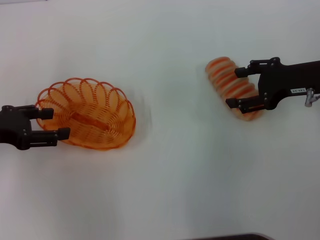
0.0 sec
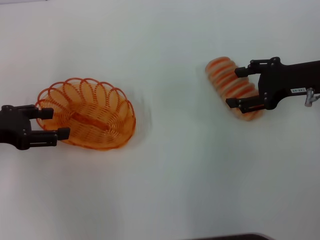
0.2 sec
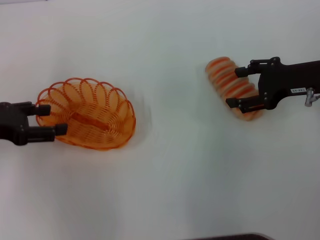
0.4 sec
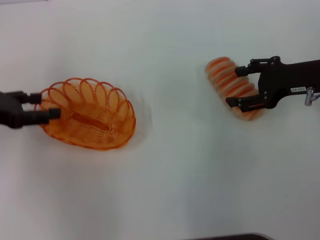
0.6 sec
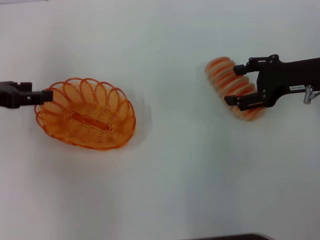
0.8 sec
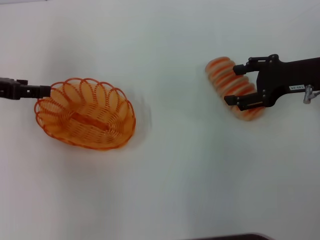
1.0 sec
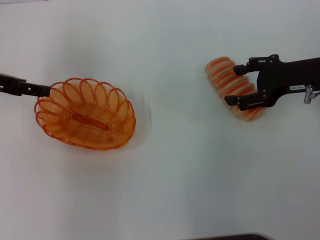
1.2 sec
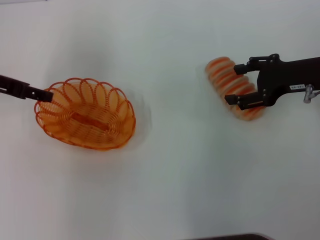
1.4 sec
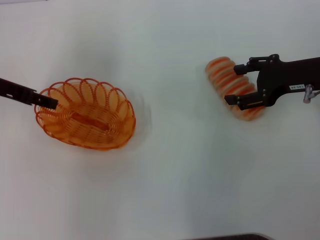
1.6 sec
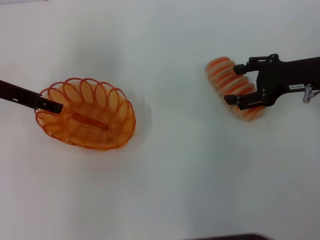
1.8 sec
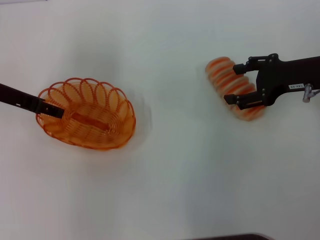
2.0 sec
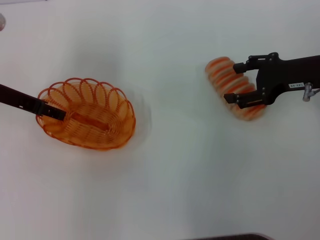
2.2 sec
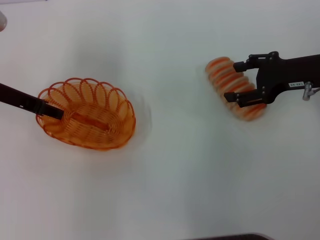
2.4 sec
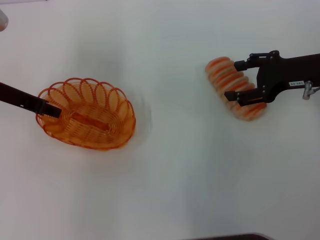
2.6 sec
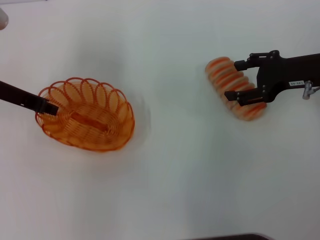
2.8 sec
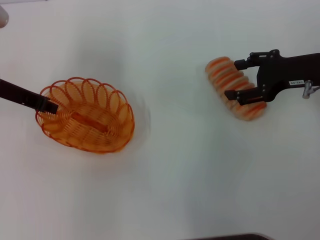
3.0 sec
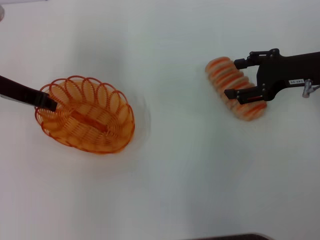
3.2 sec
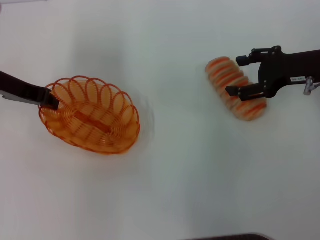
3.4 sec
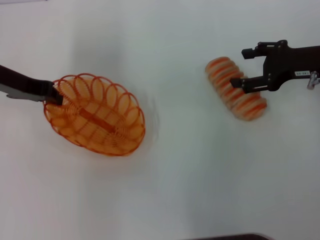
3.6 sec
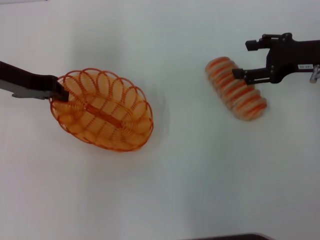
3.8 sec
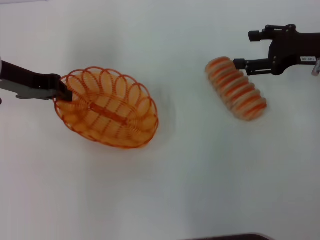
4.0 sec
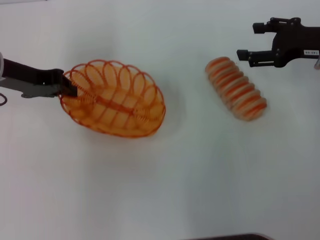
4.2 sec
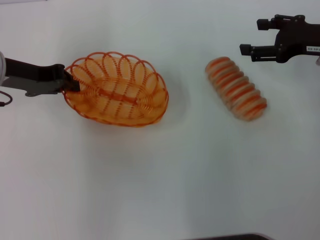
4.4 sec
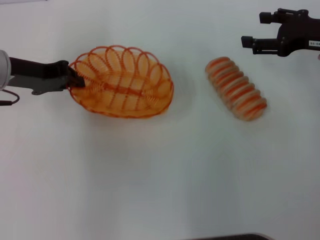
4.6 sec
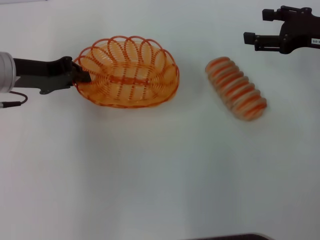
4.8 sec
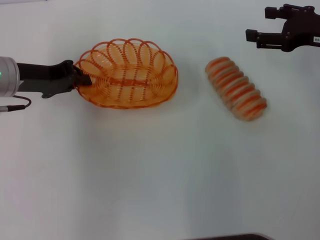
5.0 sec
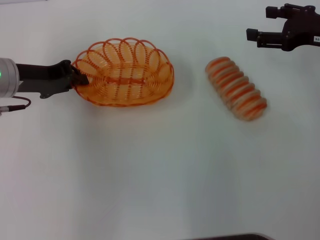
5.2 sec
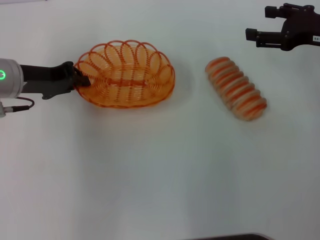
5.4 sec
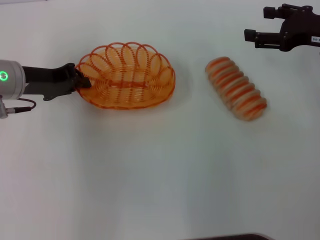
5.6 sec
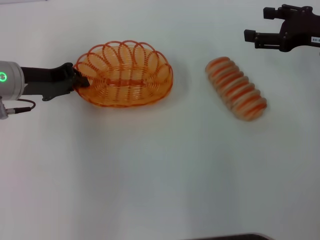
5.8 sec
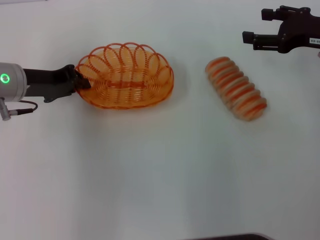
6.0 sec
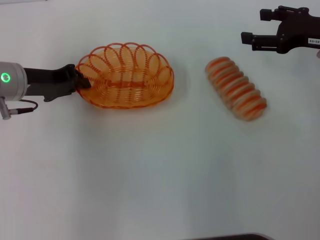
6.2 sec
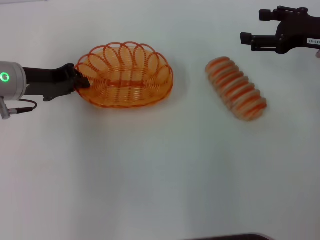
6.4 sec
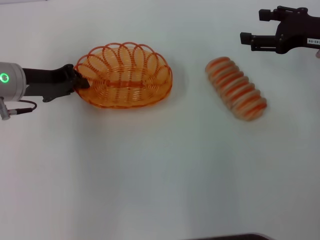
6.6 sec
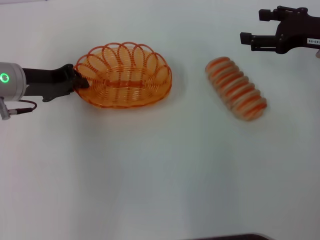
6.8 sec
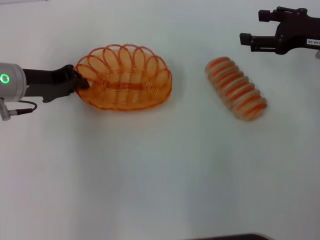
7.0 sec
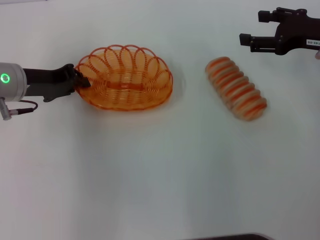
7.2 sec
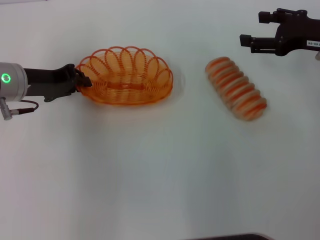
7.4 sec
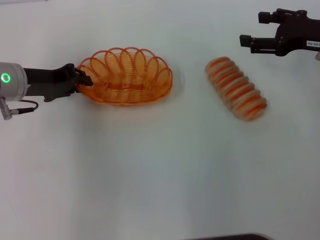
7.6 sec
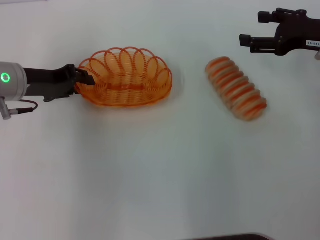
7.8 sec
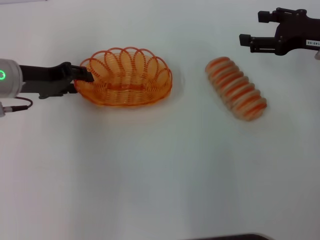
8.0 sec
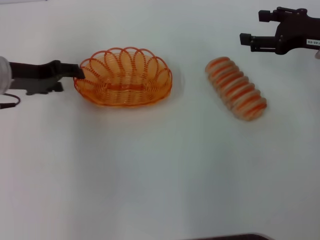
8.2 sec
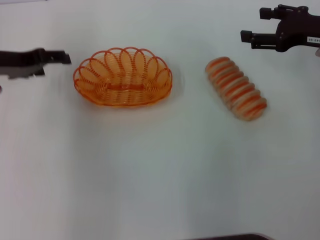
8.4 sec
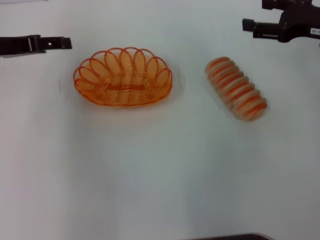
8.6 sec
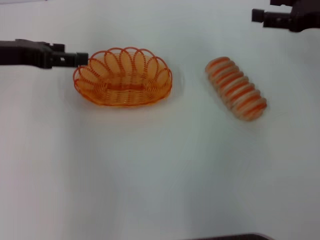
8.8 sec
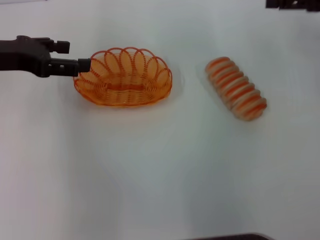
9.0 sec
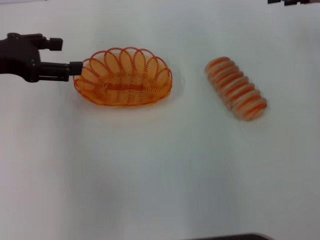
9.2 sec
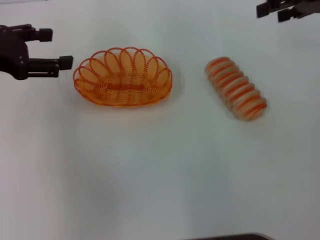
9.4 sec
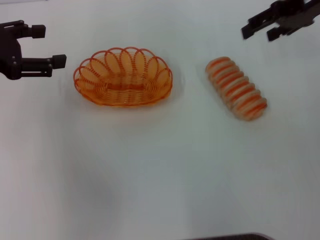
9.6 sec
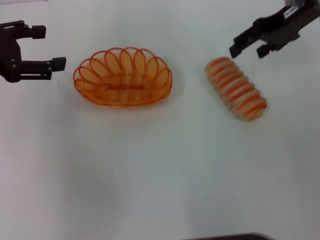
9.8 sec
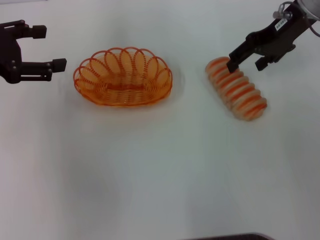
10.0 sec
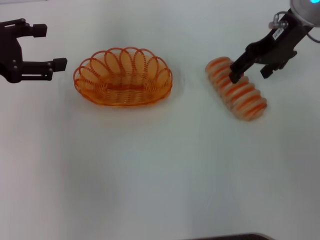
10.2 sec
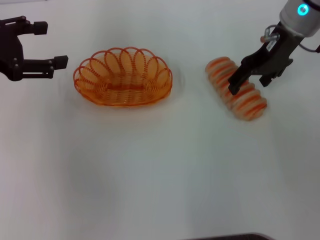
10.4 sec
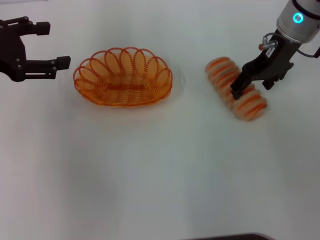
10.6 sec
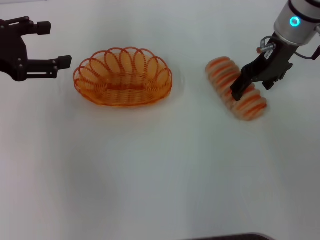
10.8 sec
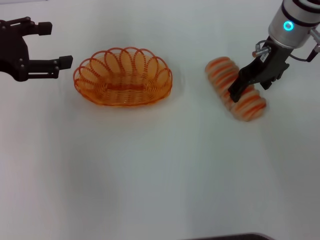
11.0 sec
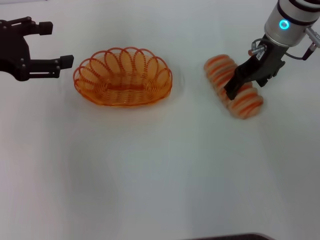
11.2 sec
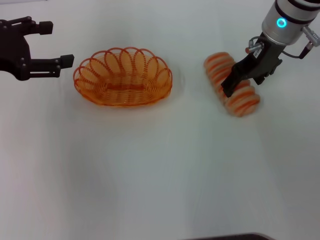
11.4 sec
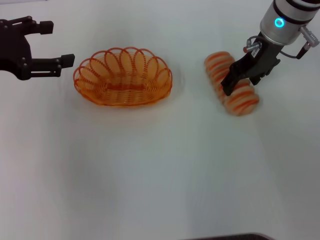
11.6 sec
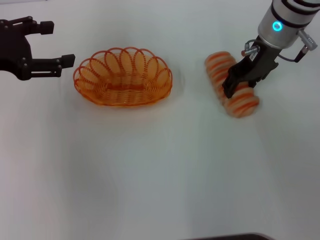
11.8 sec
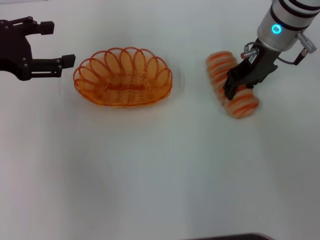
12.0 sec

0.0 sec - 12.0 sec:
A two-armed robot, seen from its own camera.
Step, 0.0 sec - 3.8 sec: Pick up the basket with the left gripper.
Step, 4.0 sec - 8.4 sec: Place the basket in the center of view with the left gripper.
0.0 sec - 1.6 sec: The left gripper heads forward, covering approximately 10 cm.
1.6 sec - 3.0 sec: The left gripper closes up.
4.4 sec - 6.0 sec: The grippers stay close to where they were, moving slightly.
6.0 sec - 7.6 sec: The two grippers keep their place.
7.6 sec - 9.0 sec: Both grippers travel together upward, approximately 5 cm. The left gripper opens up.
9.0 sec - 10.4 sec: The right gripper heads to the left, covering roughly 15 cm.
10.4 sec - 12.0 sec: The right gripper closes its fingers.

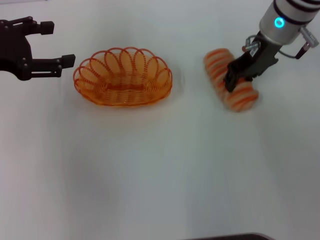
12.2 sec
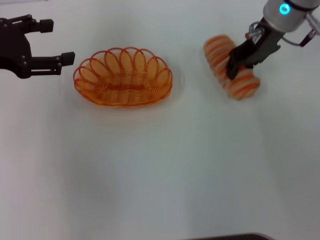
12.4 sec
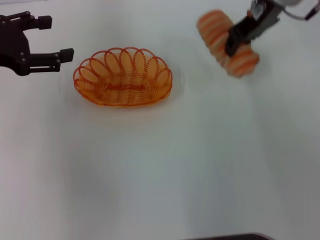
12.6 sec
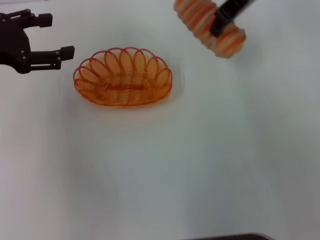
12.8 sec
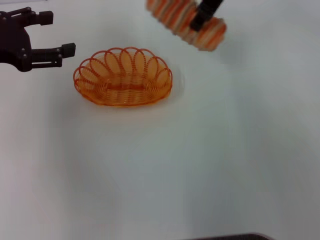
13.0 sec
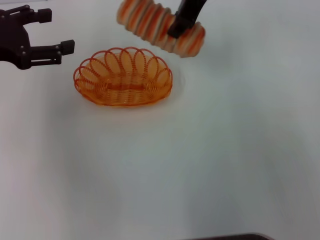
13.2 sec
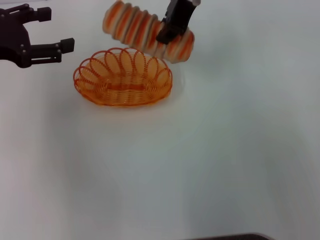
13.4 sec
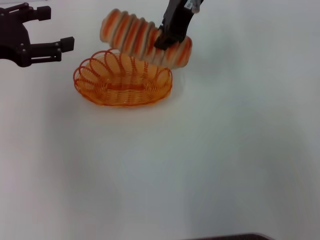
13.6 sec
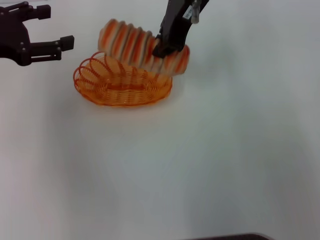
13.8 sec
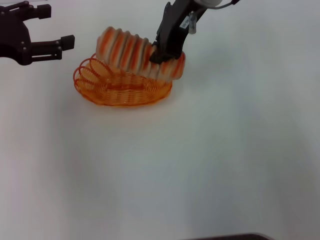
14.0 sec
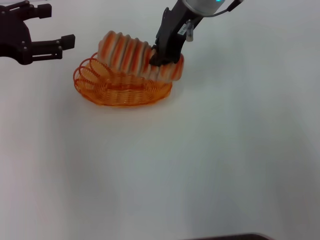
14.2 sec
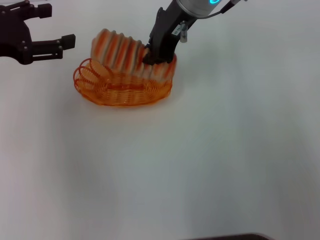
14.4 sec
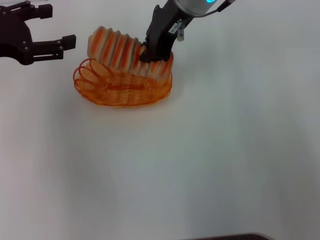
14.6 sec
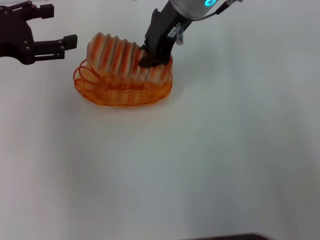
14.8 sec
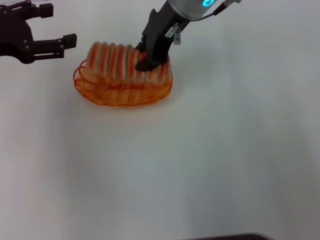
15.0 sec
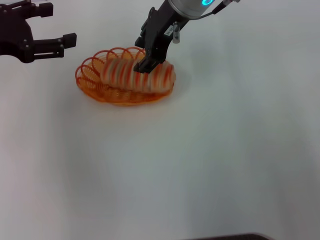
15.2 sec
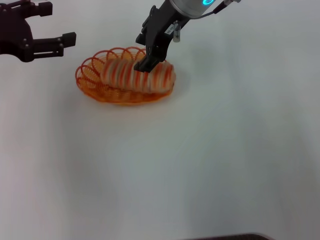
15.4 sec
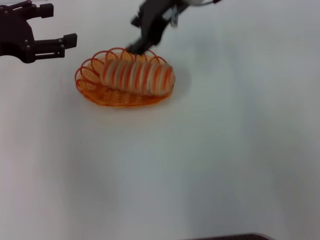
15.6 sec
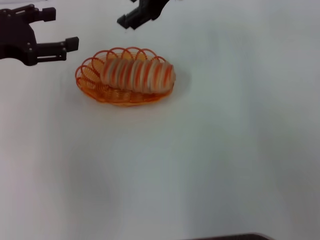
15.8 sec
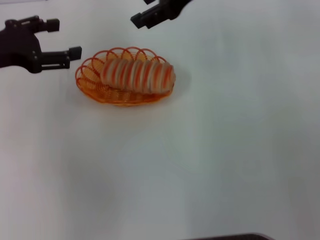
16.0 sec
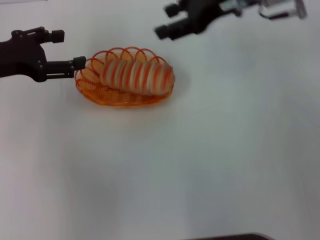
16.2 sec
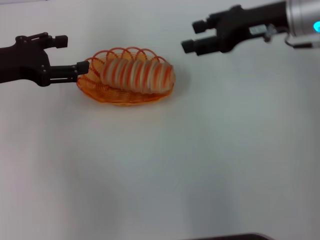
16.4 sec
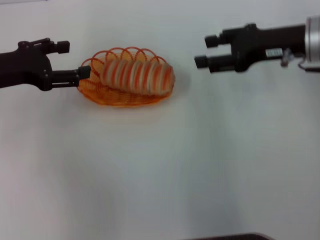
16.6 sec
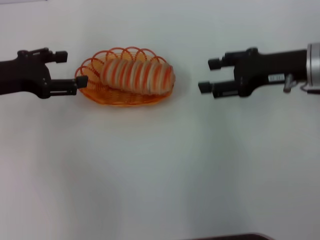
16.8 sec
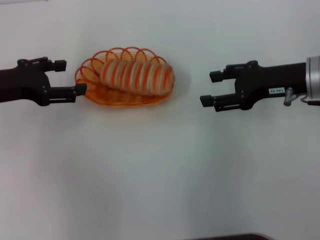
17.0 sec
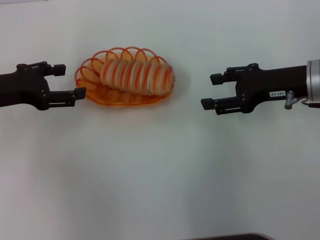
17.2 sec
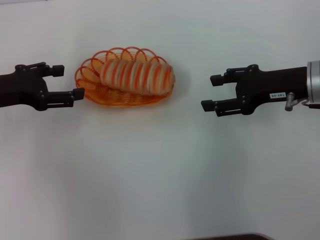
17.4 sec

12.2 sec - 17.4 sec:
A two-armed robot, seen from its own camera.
Step, 12.6 sec - 15.6 sec: Place the long bread into the basket with the right gripper.
12.2 sec - 14.0 sec: The right gripper goes approximately 15 cm to the left and upward, and closes up.
14.0 sec - 15.6 sec: The right gripper opens.
15.6 sec - 17.4 sec: The right gripper is displaced to the right, downward and backward by approximately 25 cm; the left gripper goes roughly 5 cm downward.

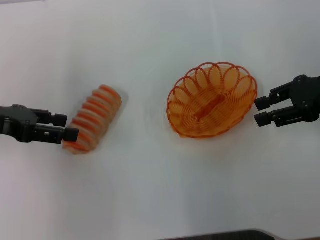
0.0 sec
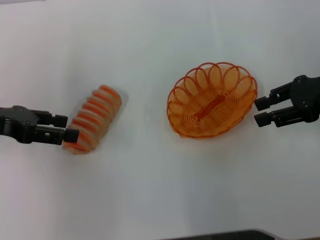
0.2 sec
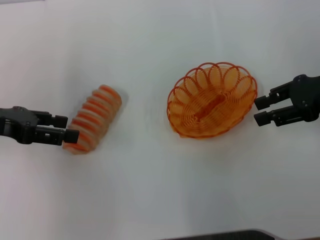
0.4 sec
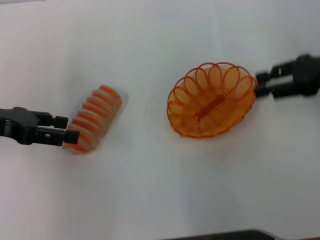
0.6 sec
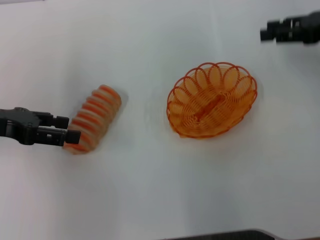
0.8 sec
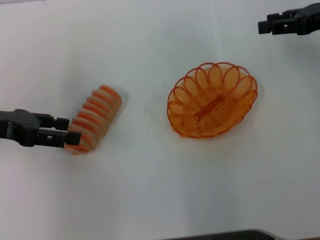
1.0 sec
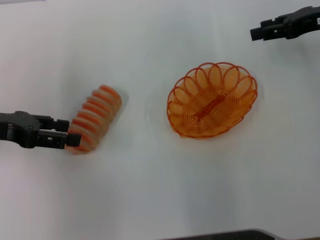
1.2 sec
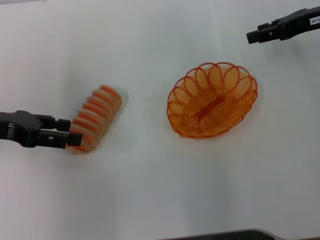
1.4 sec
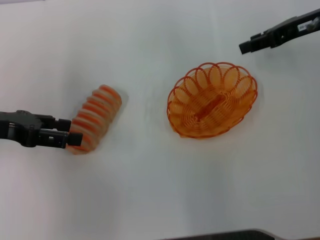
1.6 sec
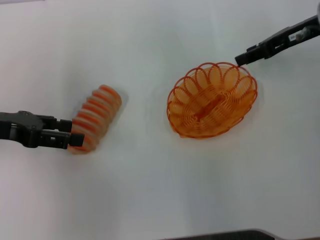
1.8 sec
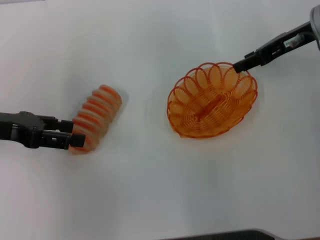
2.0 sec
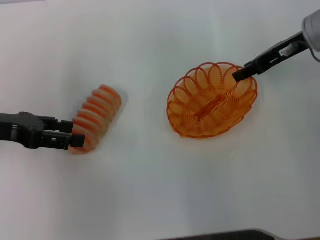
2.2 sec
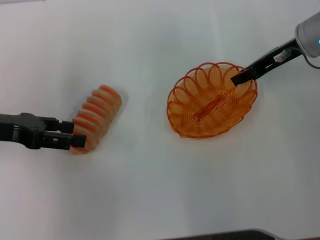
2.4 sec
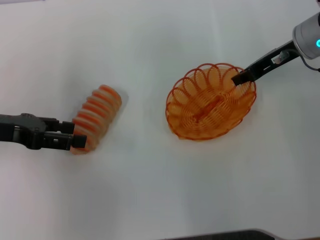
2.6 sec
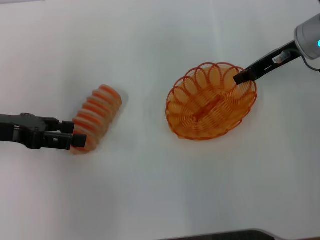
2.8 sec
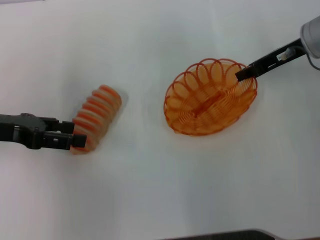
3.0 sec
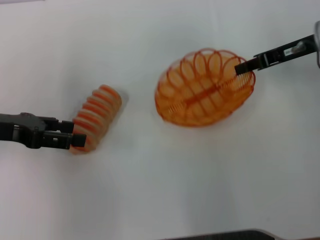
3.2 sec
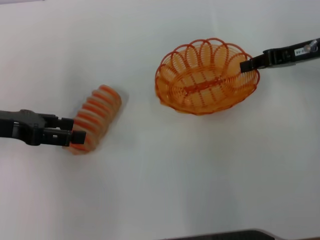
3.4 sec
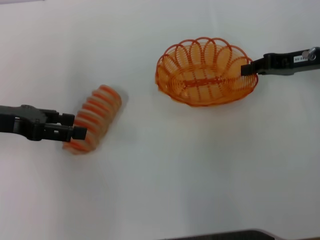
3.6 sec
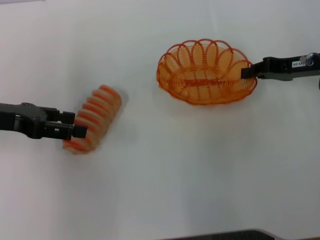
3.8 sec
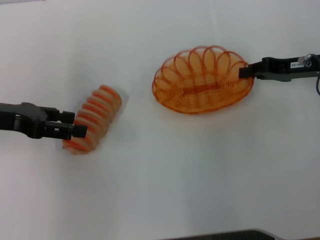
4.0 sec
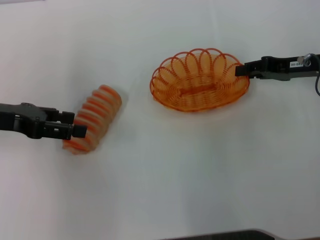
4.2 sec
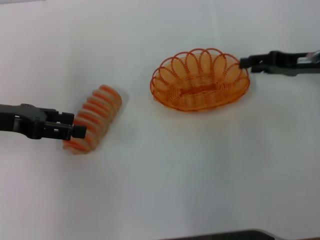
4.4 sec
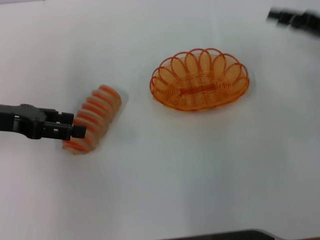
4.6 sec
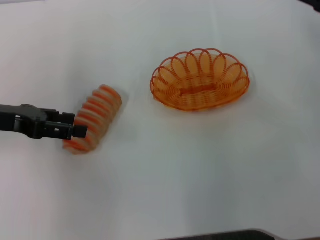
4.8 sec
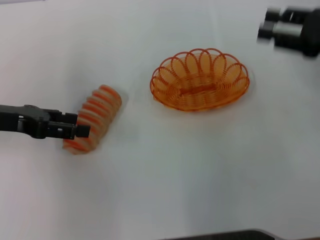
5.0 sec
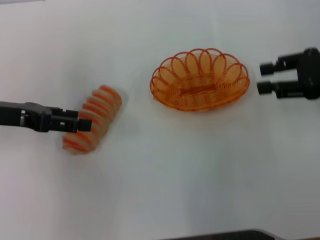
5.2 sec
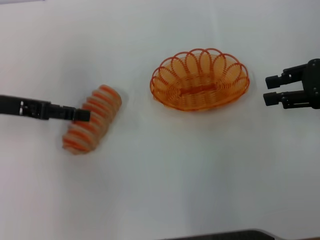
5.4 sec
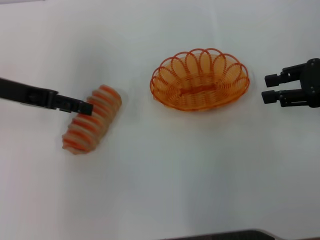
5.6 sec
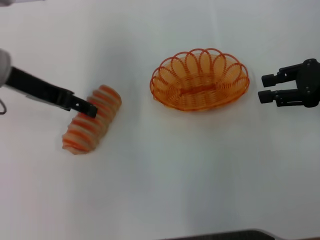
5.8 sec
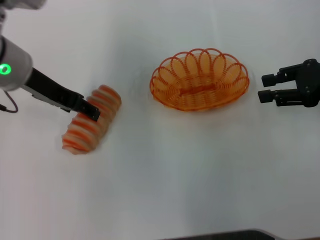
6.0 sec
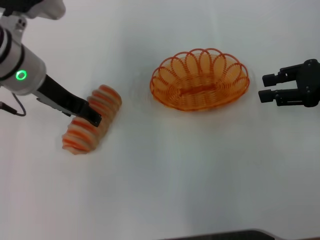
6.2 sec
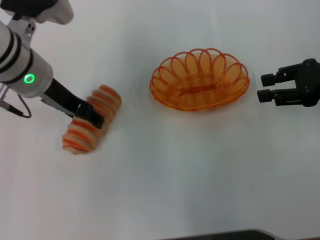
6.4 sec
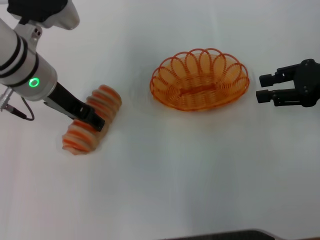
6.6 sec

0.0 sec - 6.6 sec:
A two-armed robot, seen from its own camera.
Step, 0.0 sec - 3.2 sec: Pick up the basket with the right gripper.
Step, 3.4 sec - 4.4 sec: Place the basket in the center of view with the right gripper.
0.0 sec - 1.6 sec: The right gripper shifts some 10 cm forward.
1.6 sec - 3.2 sec: The right gripper closes its fingers.
3.2 sec - 5.0 sec: The right gripper travels backward by some 5 cm, and opens.
5.0 sec - 6.6 sec: The left gripper is displaced to the right by some 15 cm.
